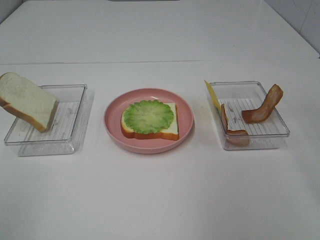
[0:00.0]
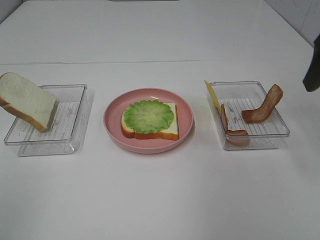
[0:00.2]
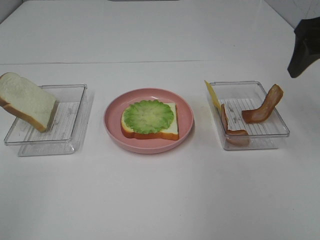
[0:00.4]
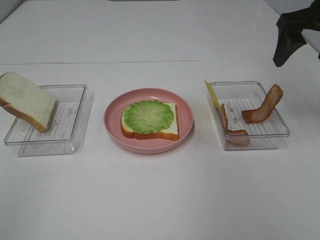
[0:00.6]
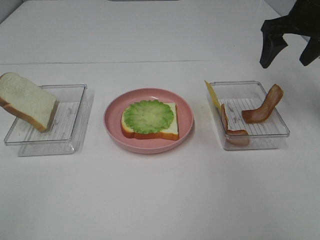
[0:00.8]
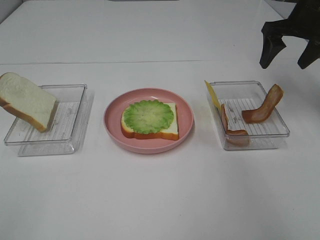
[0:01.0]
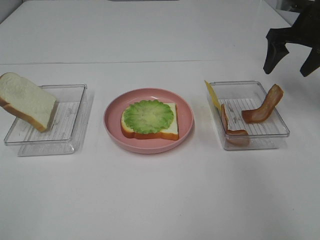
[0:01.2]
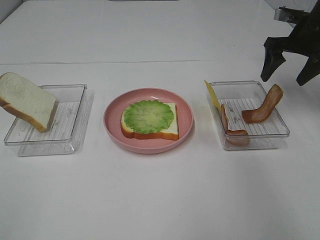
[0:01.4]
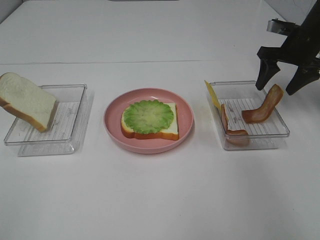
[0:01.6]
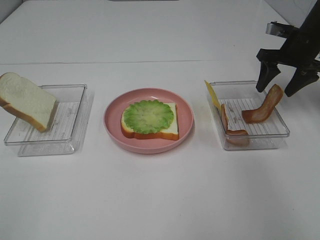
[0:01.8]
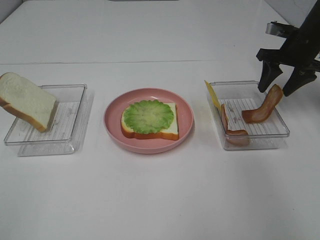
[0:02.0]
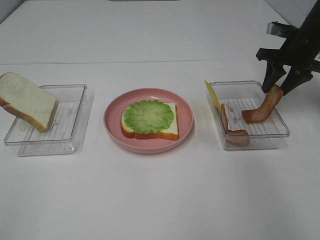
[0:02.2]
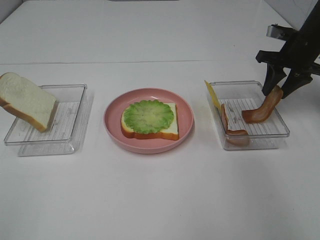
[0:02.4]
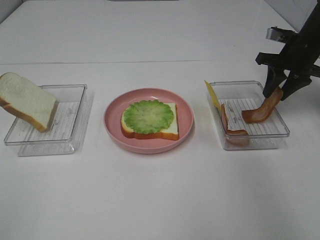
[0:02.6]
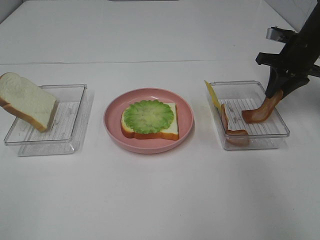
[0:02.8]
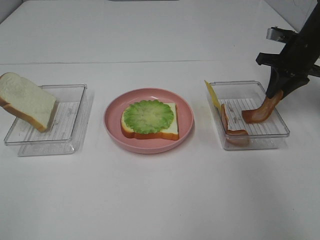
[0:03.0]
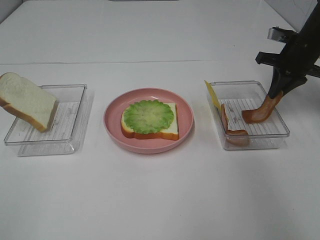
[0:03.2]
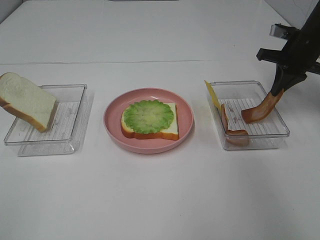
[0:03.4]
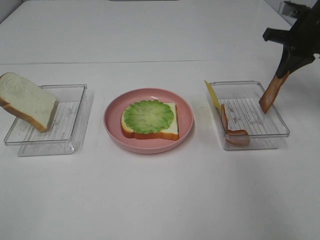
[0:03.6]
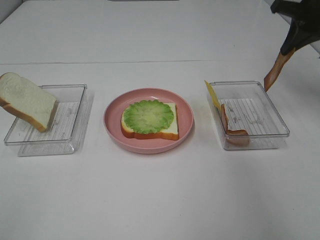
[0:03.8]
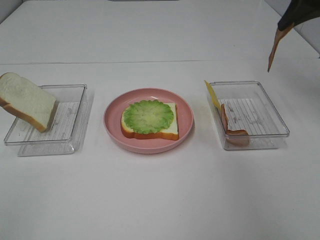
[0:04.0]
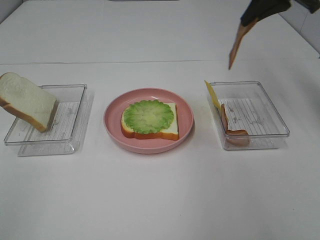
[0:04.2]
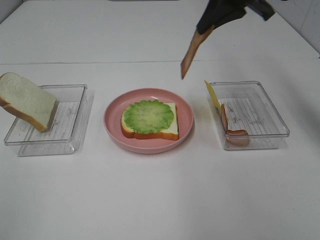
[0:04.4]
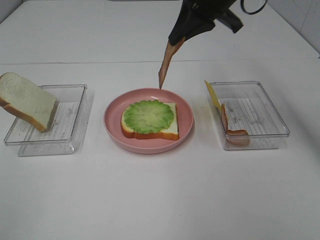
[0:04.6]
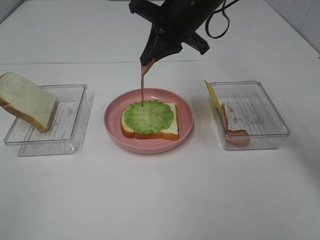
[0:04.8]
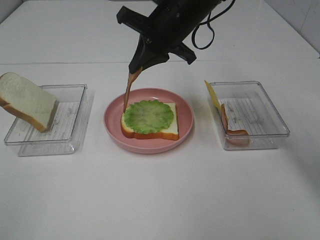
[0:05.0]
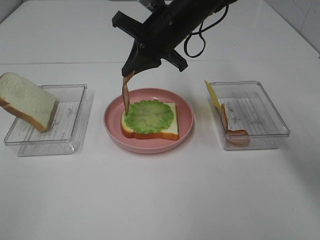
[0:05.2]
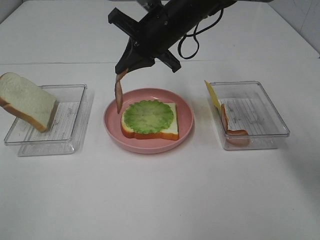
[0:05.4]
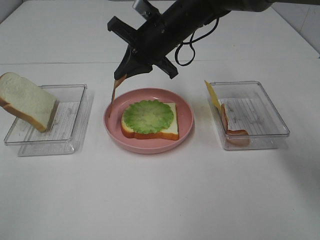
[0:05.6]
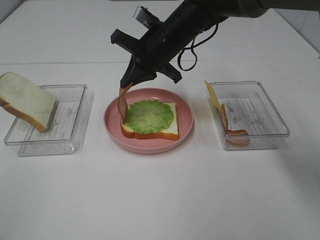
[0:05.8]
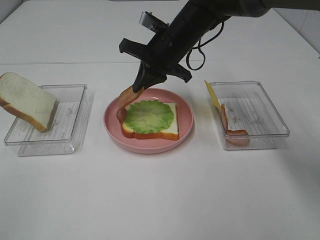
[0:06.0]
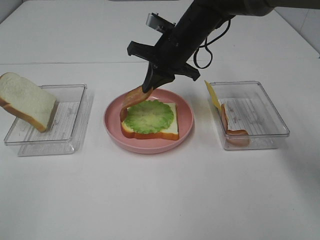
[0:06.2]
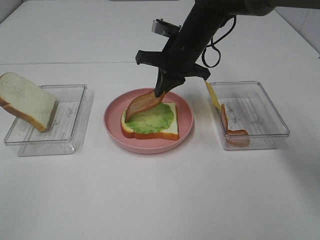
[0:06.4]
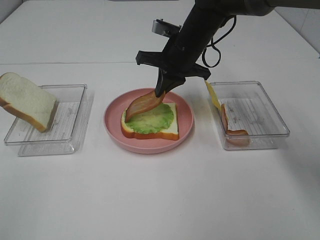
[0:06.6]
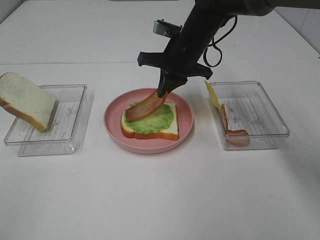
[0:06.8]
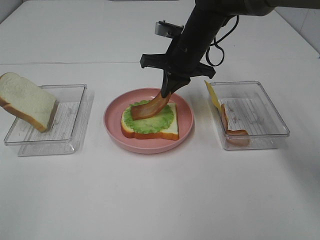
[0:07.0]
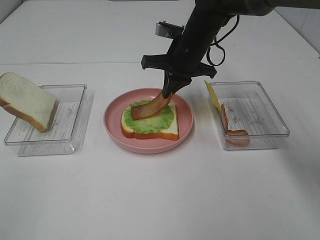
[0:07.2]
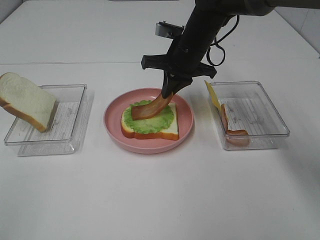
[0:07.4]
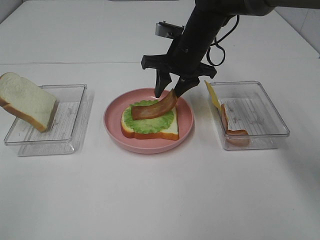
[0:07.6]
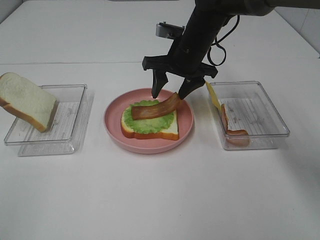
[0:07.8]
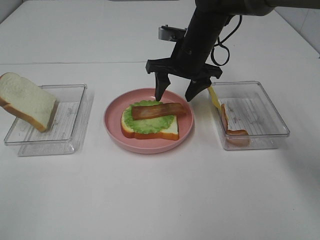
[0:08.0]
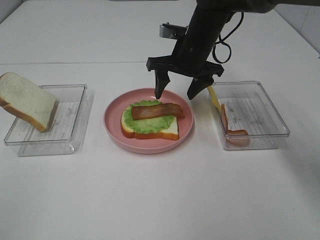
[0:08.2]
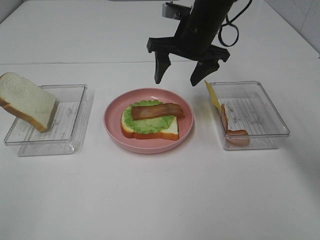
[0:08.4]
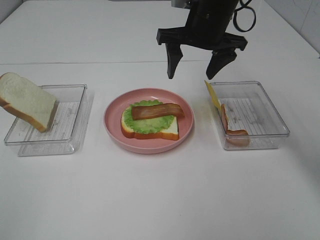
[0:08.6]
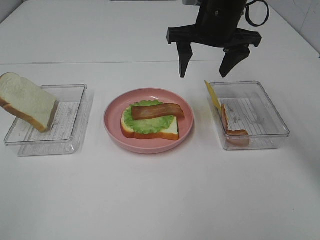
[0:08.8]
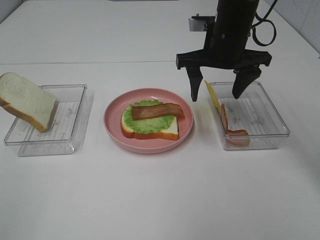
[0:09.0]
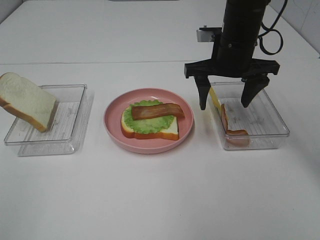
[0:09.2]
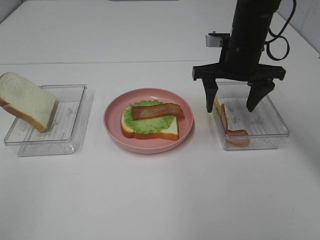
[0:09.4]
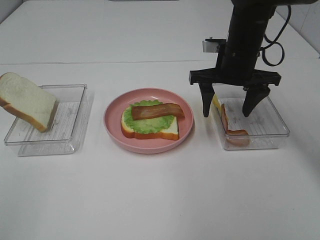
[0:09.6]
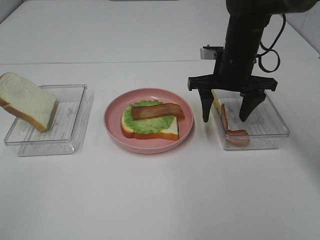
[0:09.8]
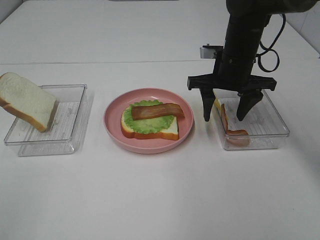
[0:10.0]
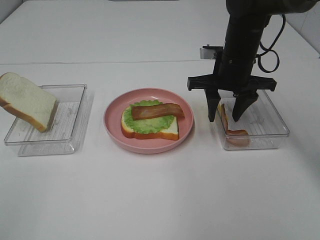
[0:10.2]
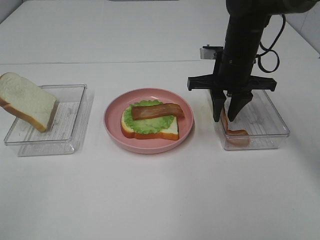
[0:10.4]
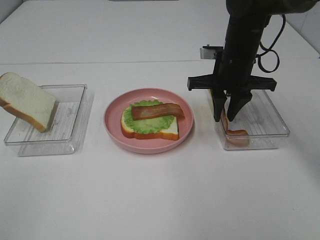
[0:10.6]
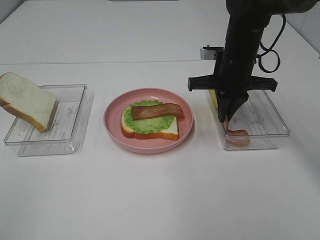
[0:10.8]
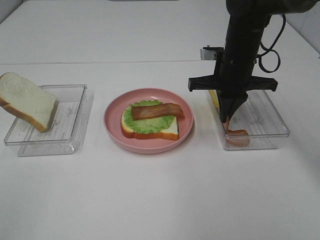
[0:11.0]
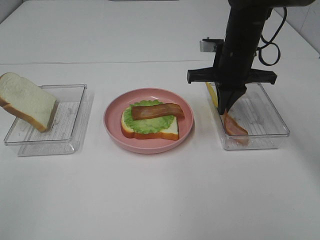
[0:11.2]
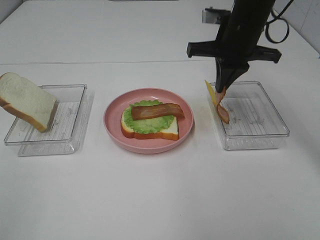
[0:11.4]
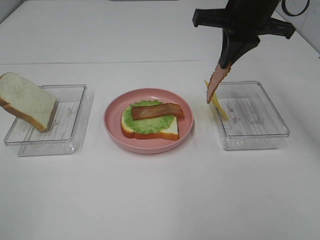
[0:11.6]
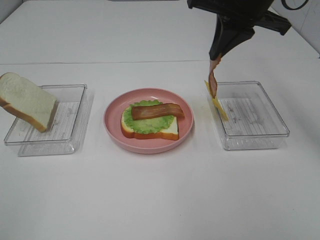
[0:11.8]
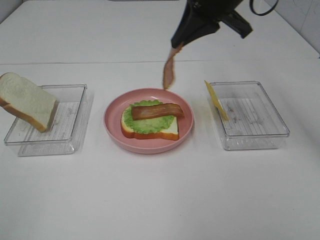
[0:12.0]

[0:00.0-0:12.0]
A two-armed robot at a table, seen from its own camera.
Task of the whole recording: Make sandwiches.
Step, 0.0 to 3.2 s: Right hand:grab the bacon.
Step, 3.4 to 8.0 s: Right hand:place bacon on lettuce slice.
Step, 8.2 to 10.8 s: Right hand:grab the bacon.
0.0 to 1.6 s: The right gripper goes approximately 30 cm forward and downward.
1.6 to 3.0 s: The right gripper closes up.
3.0 to 4.4 s: The right gripper travels to the left and upward by some 20 cm.
4.4 to 6.0 s: The right gripper is displaced downward and to the left by about 15 cm.
6.0 to 7.6 s: The right gripper opens.
7.6 to 9.0 s: The right gripper moves upward, approximately 5 cm.
9.0 to 10.4 s: The right gripper shifts about 5 cm downward, and closes.
10.4 to 12.0 s: The right gripper moves upward, approximately 15 cm.

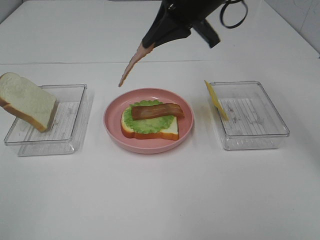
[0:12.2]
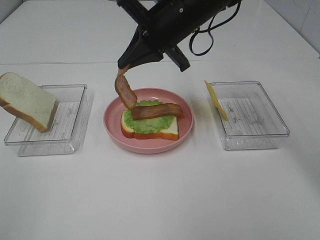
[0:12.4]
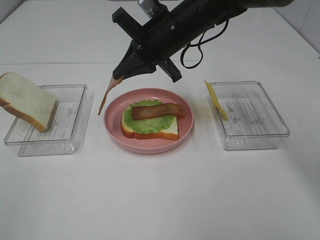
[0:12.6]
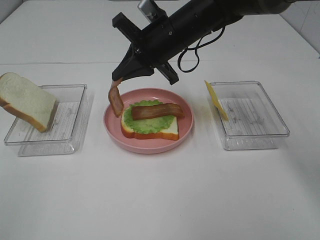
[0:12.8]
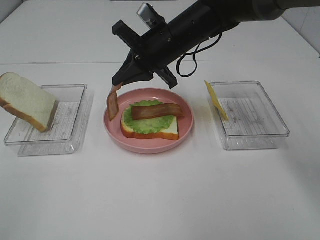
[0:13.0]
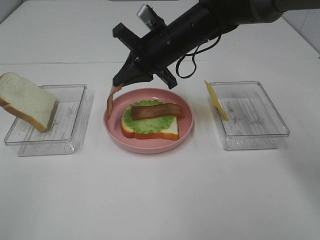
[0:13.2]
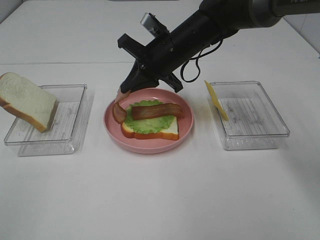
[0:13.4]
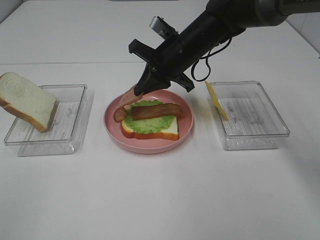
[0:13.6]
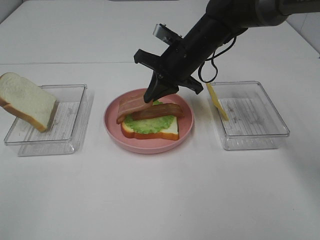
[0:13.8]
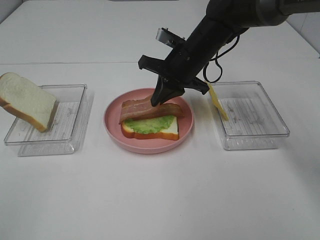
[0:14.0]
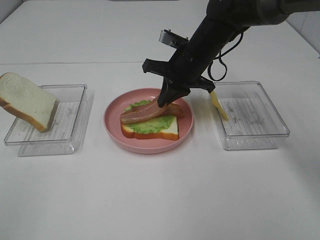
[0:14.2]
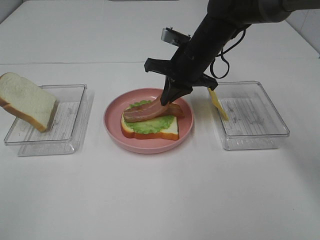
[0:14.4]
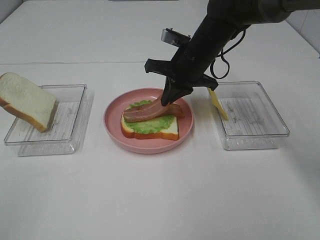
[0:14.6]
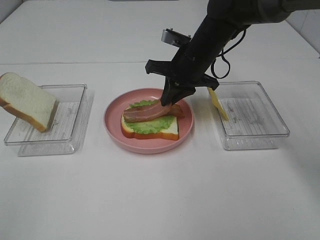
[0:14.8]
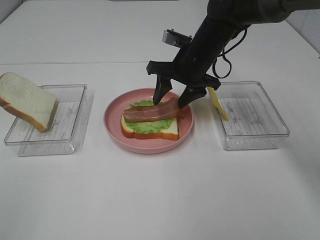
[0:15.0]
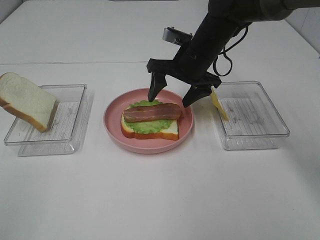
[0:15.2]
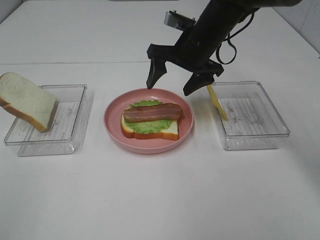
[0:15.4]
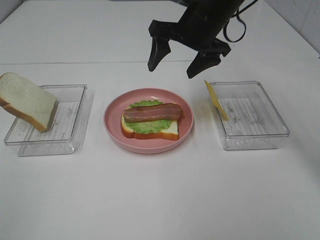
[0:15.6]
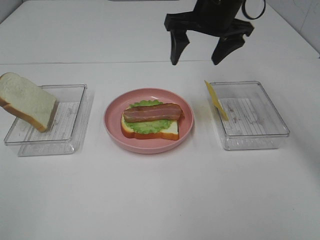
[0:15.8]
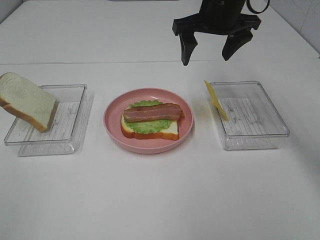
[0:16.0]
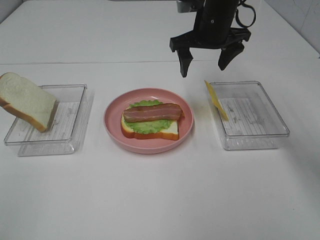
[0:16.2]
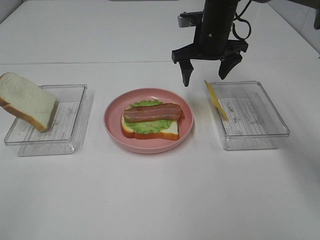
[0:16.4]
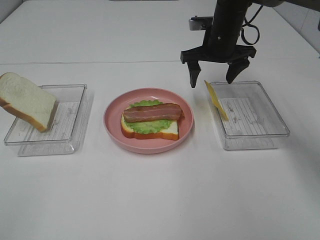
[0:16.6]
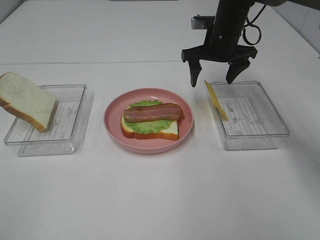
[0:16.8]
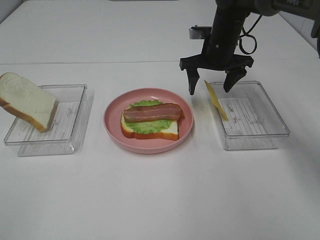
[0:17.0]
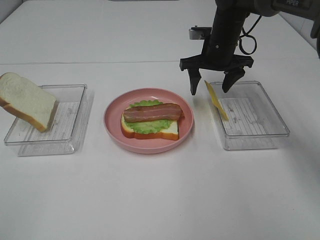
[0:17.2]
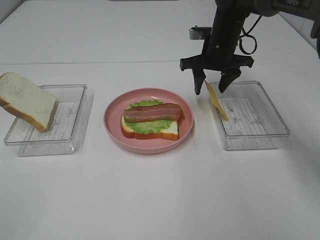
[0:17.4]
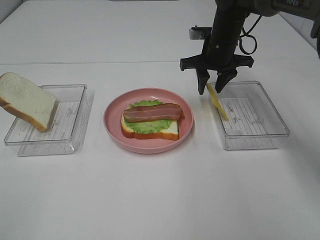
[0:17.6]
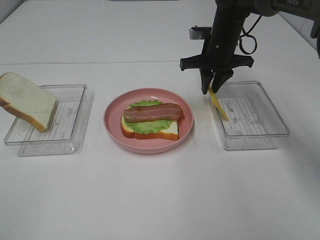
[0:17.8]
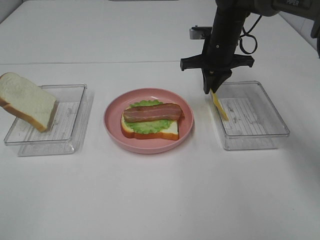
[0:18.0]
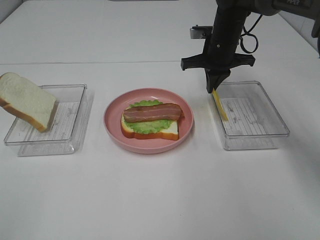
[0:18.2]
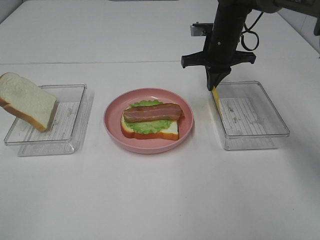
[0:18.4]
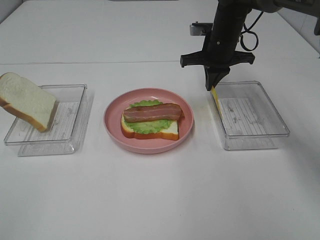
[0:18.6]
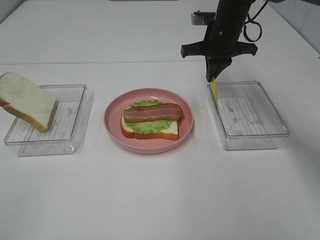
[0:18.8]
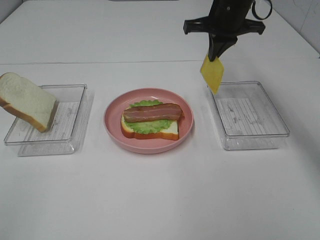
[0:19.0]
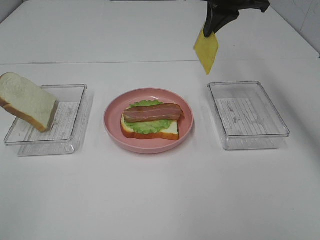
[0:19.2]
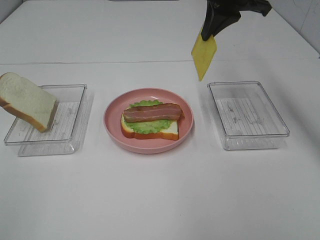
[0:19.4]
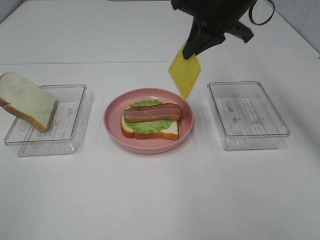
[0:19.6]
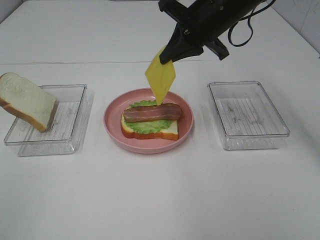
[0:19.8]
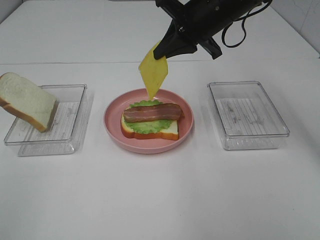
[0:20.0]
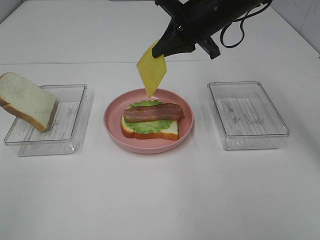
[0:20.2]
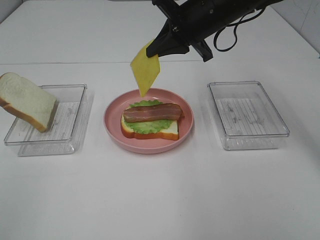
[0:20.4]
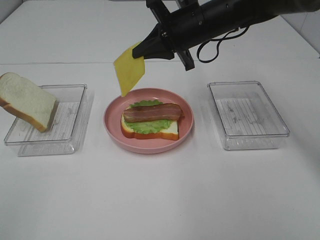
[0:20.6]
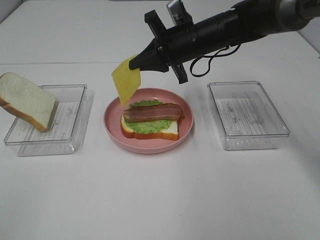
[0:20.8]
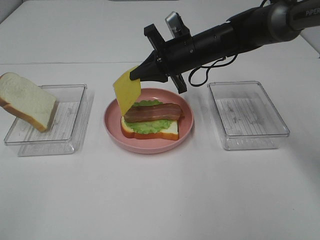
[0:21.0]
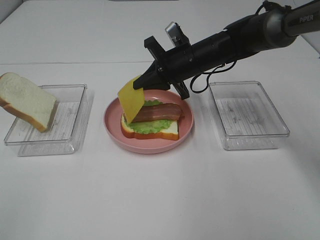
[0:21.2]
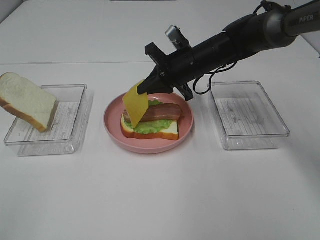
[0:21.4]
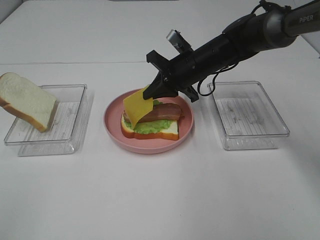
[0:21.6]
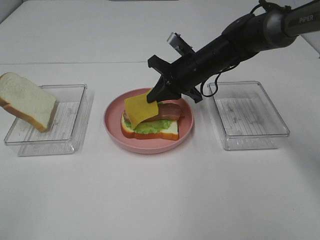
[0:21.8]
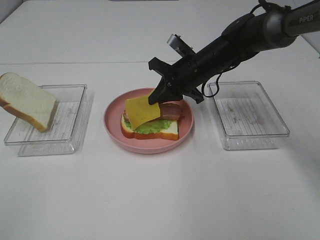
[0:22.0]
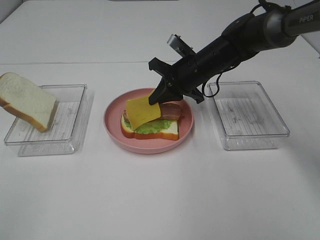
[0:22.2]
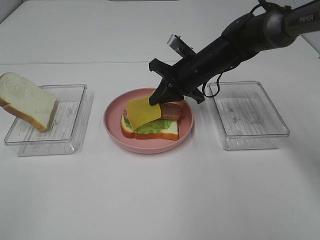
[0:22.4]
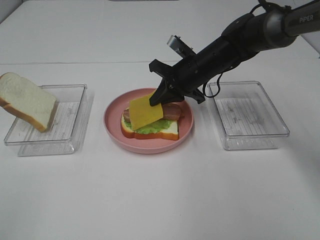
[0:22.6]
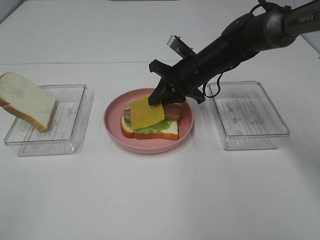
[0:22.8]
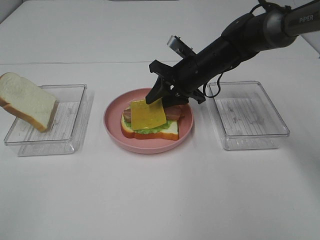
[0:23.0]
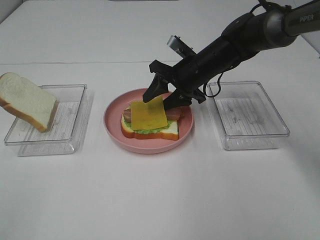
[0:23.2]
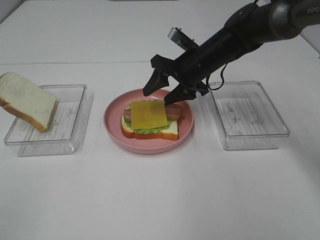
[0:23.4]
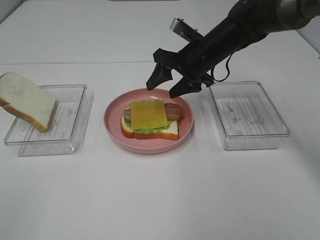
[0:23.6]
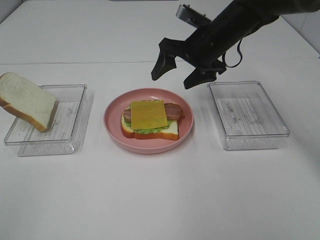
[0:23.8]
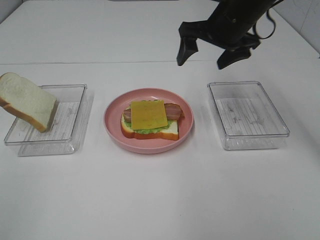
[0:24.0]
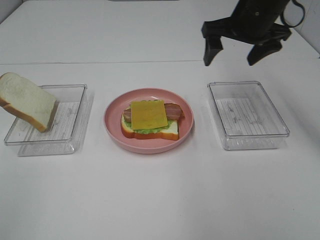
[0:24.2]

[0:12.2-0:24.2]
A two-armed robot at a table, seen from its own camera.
Task of the whole recording: Make sandwiches.
Step, 12.2 to 15.0 s: Right hand:place bacon on bacon.
Step, 15.2 to 18.4 s: Right hand:grab the cheese slice.
Step, 18.6 to 23.6 s: Right hand:place the cheese slice on top of the bacon.
12.2 to 13.8 s: The right gripper travels downward by some 10 cm.
13.8 to 15.2 s: The right gripper opens its fingers.
15.2 to 16.6 s: The right gripper is displaced forward and to the right by roughly 10 cm, and moves roughly 10 cm upward and comes back.
16.6 to 18.2 s: The right gripper closes up.
18.2 to 19.8 s: The right gripper goes some 10 cm upward and backward.
19.8 to 21.2 s: The right gripper is displaced downward by roughly 10 cm.
21.2 to 22.6 s: The grippers move only a little.
22.6 to 24.2 s: The right gripper goes roughly 15 cm upward and to the right, and opens up.
